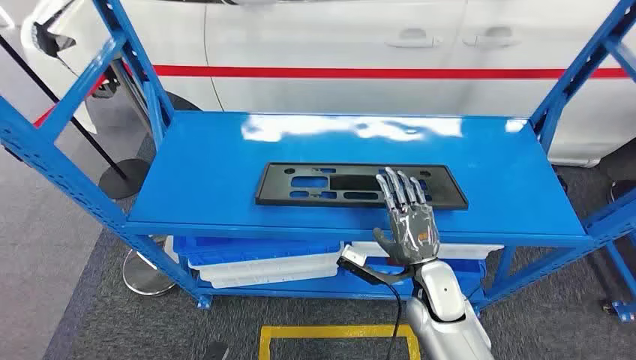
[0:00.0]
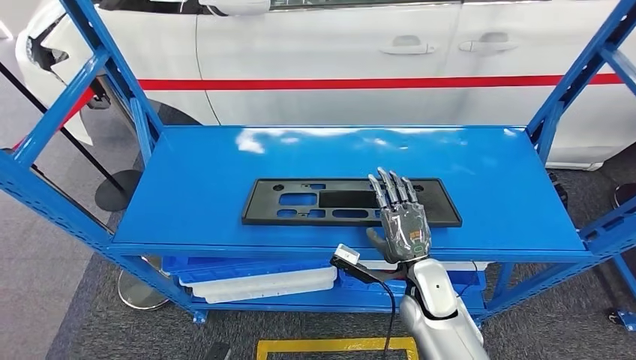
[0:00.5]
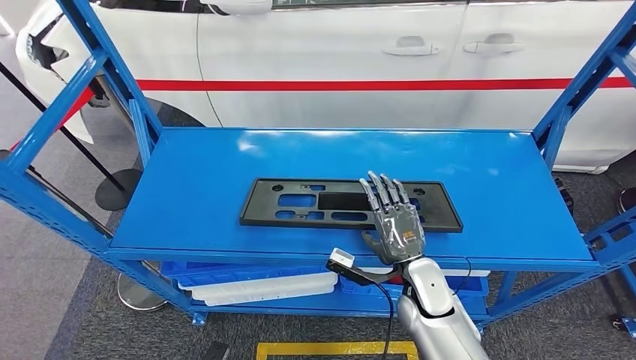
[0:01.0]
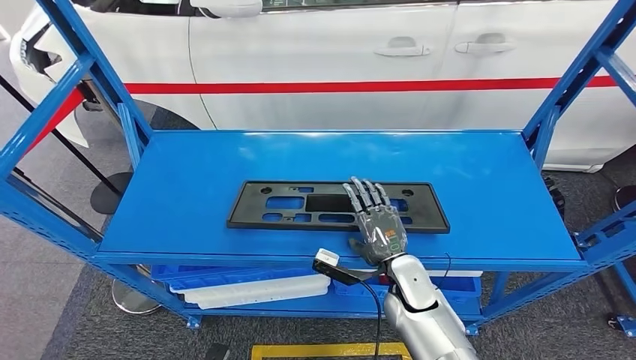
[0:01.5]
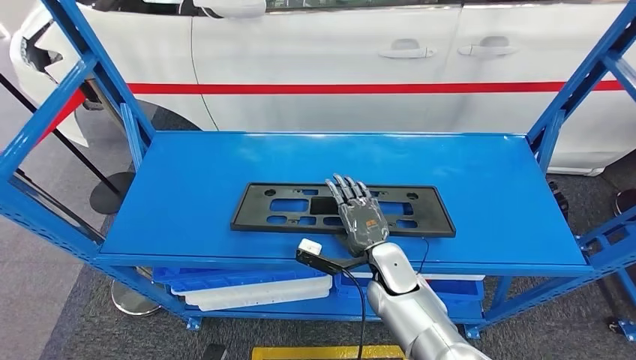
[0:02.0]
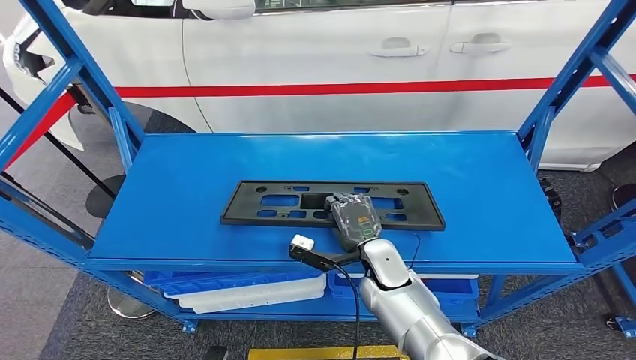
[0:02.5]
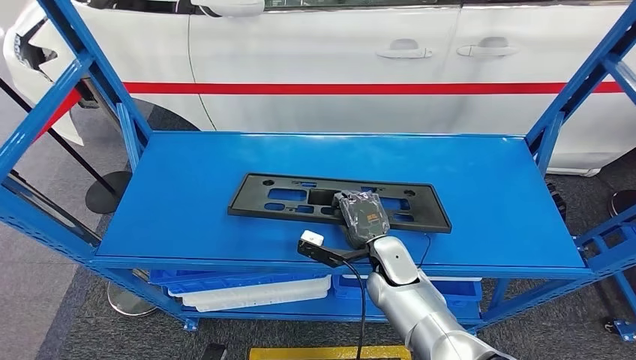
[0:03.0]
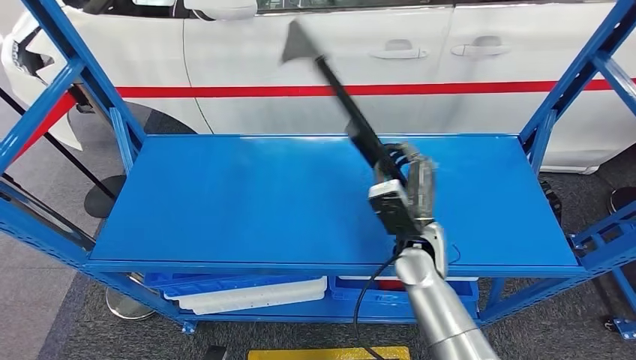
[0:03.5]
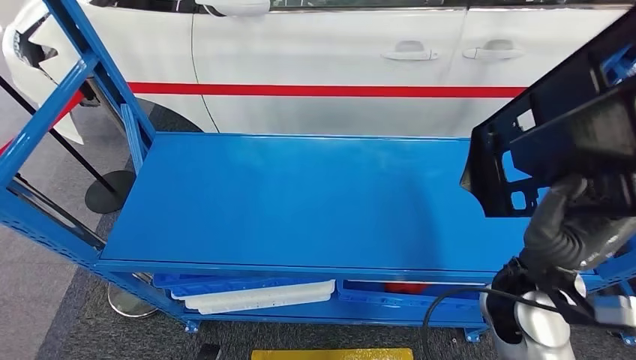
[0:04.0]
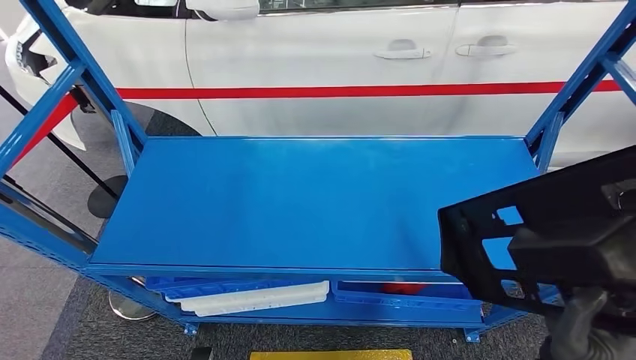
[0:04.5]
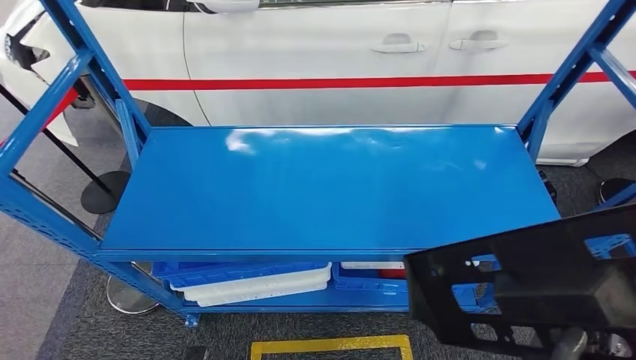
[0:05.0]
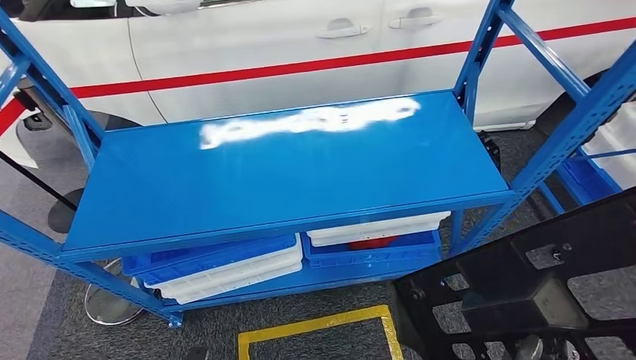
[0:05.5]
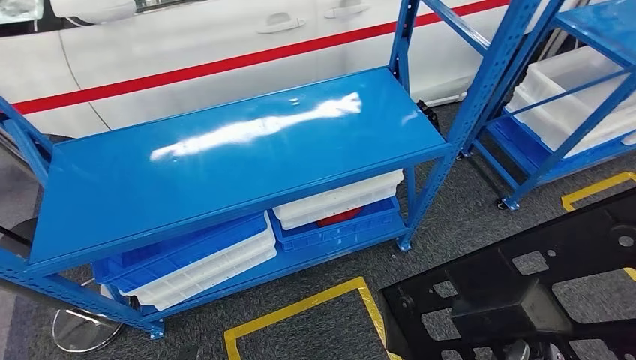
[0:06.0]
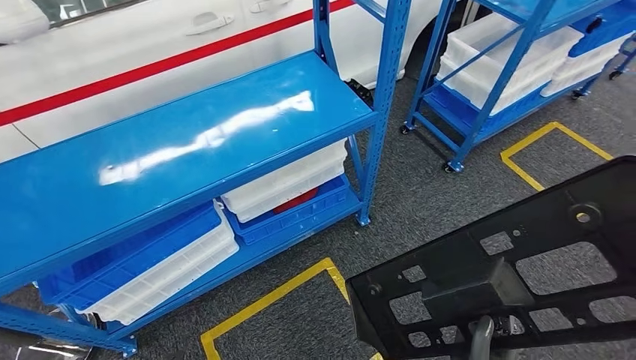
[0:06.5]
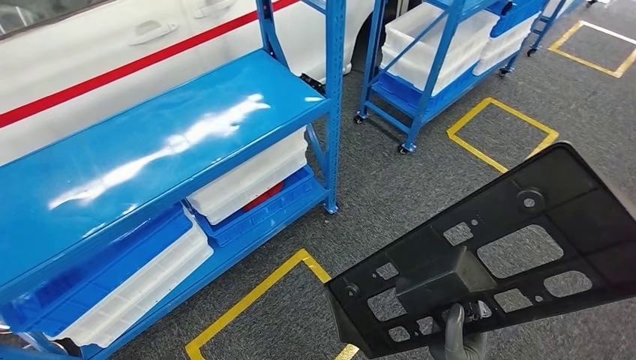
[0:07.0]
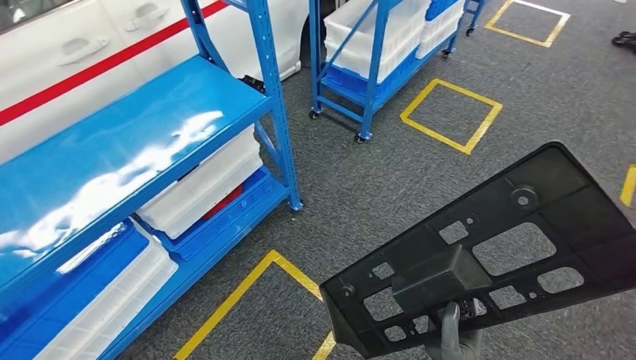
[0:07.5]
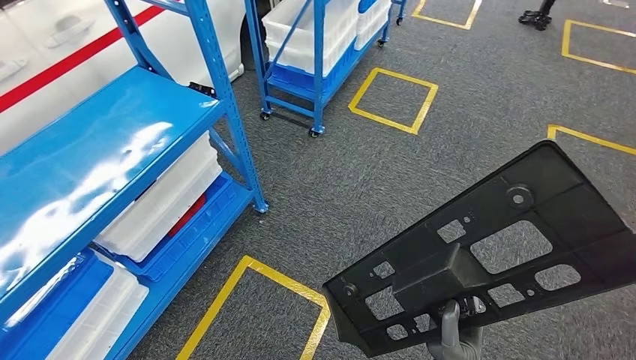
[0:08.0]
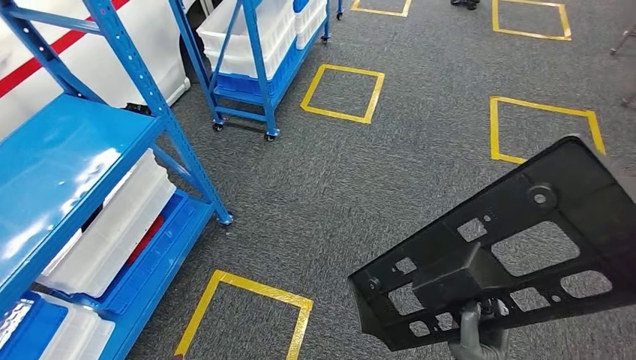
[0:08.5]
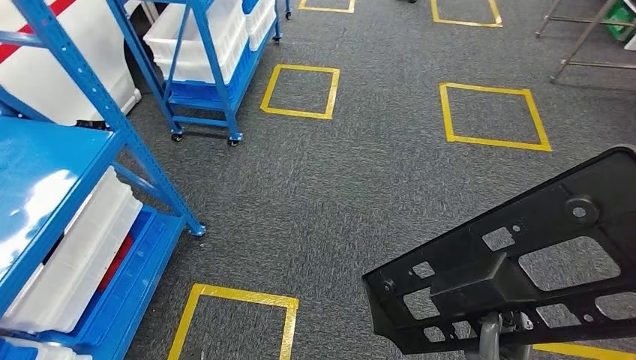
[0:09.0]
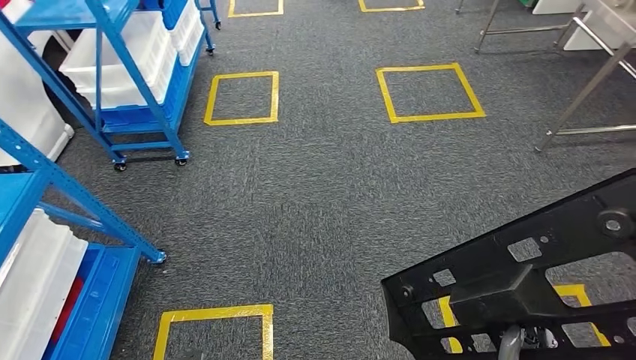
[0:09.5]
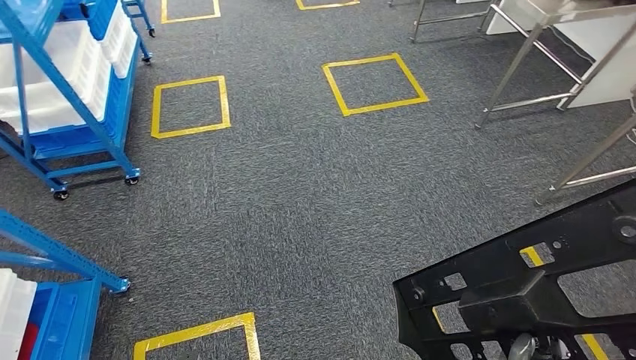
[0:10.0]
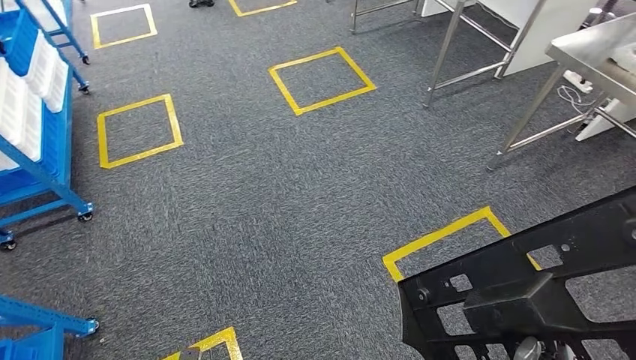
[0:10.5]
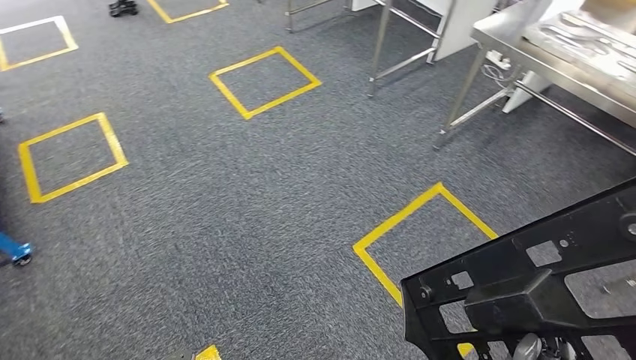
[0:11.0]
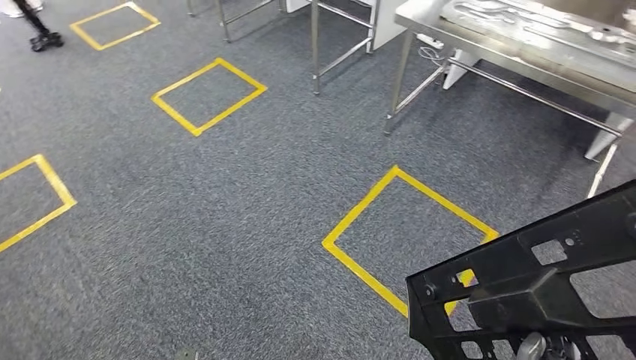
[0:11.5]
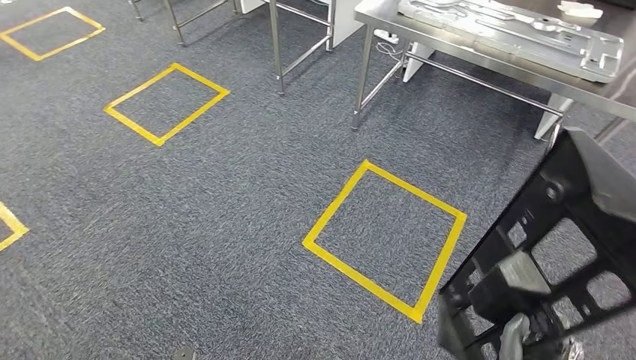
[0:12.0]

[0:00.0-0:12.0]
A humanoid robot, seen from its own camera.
Step, 0:00.0 to 0:04.0: Pick up the large material from the shelf.

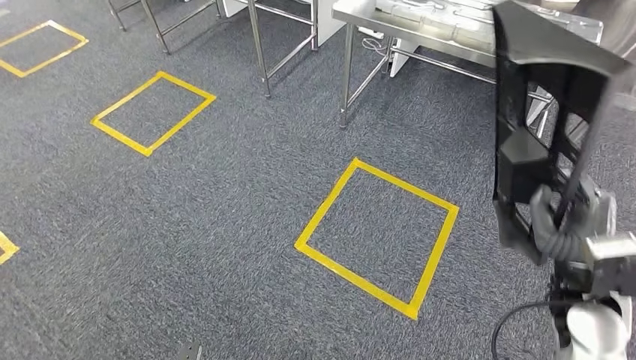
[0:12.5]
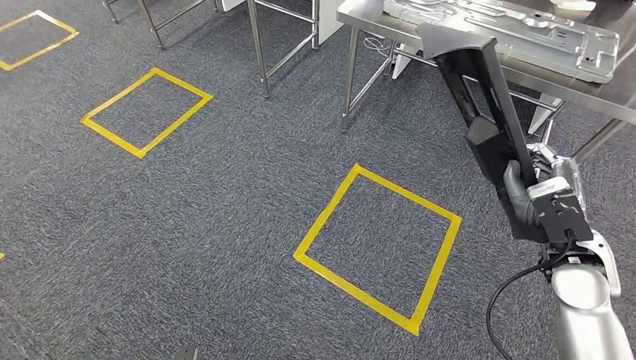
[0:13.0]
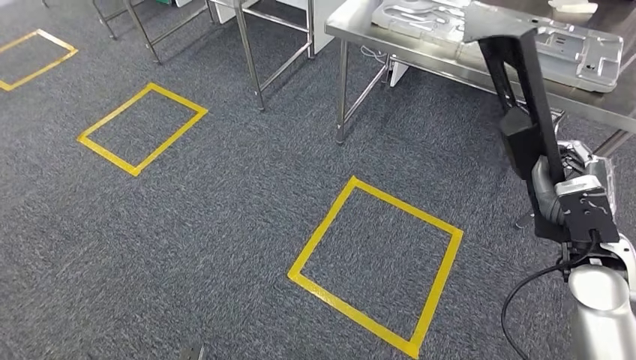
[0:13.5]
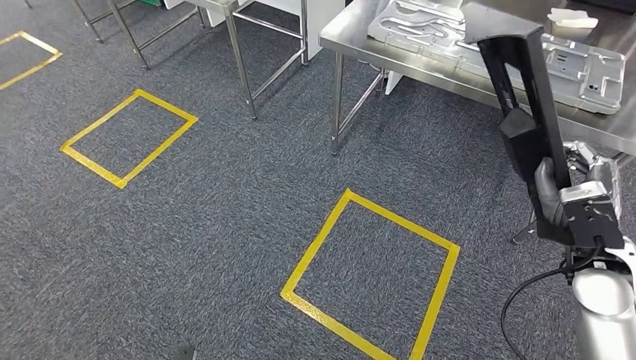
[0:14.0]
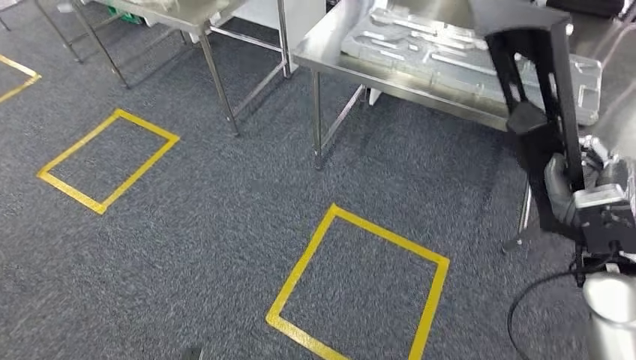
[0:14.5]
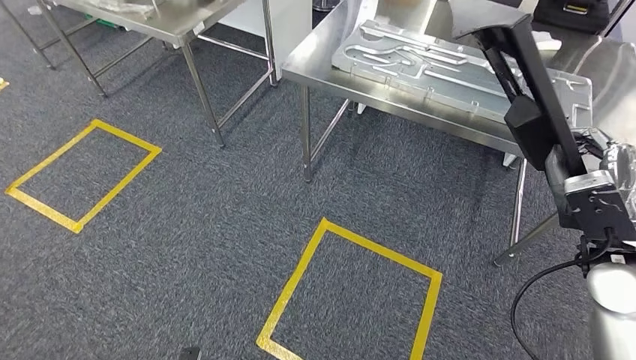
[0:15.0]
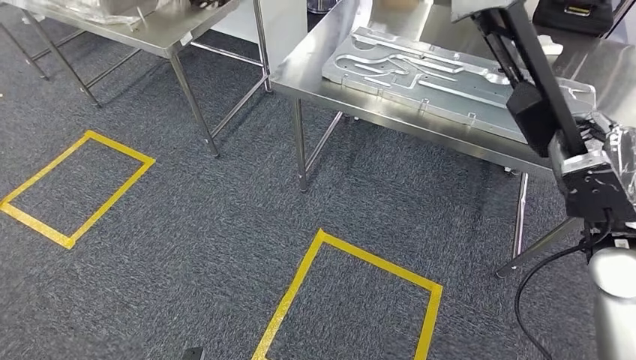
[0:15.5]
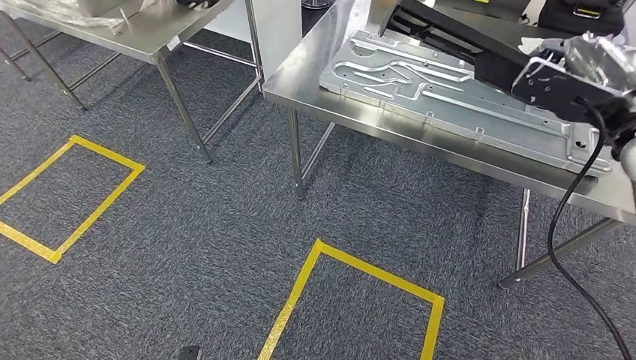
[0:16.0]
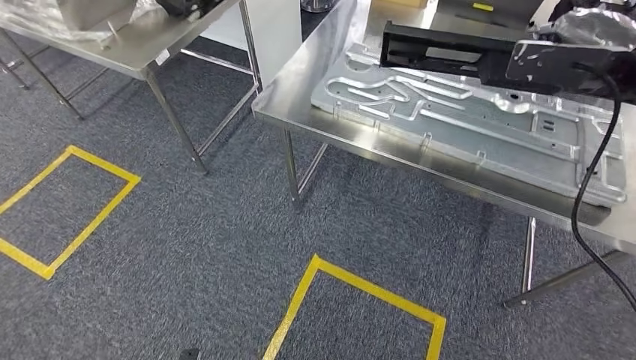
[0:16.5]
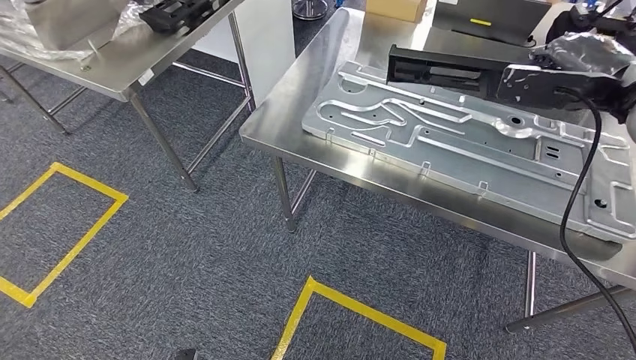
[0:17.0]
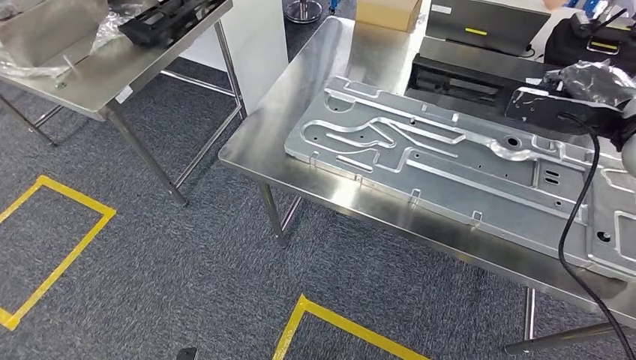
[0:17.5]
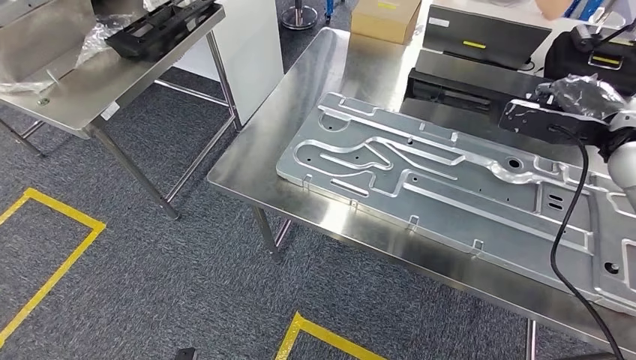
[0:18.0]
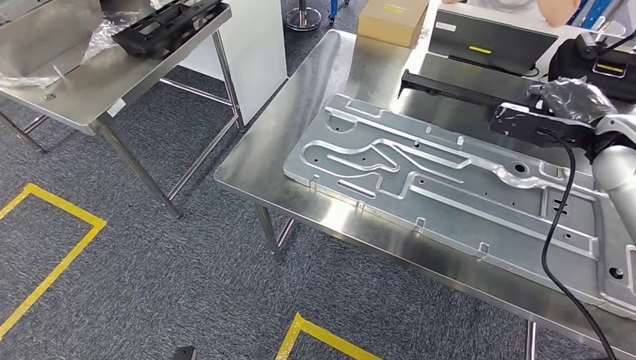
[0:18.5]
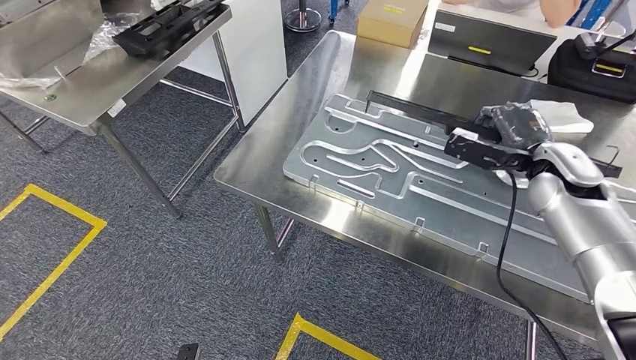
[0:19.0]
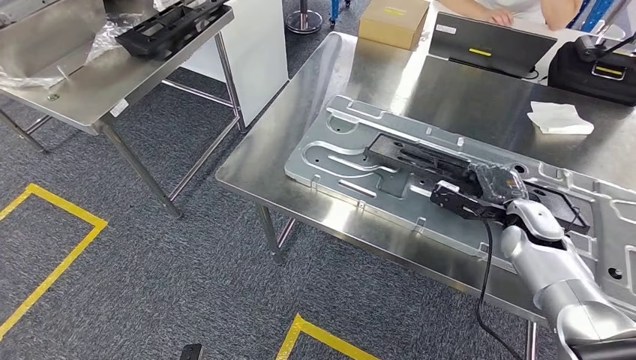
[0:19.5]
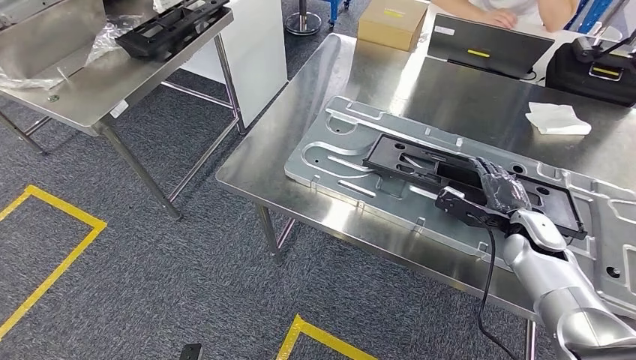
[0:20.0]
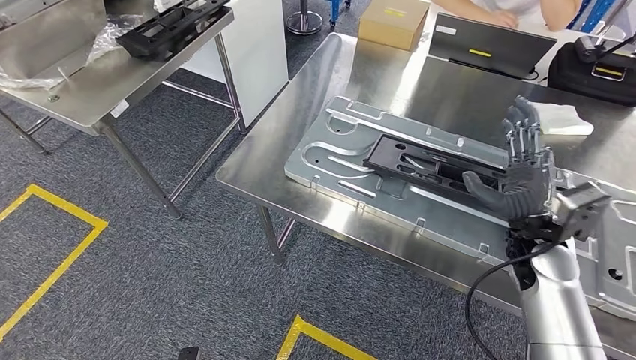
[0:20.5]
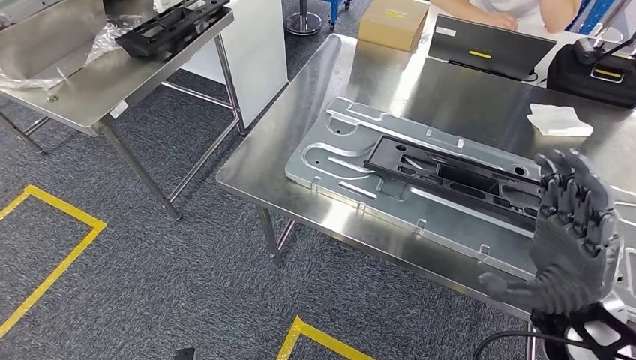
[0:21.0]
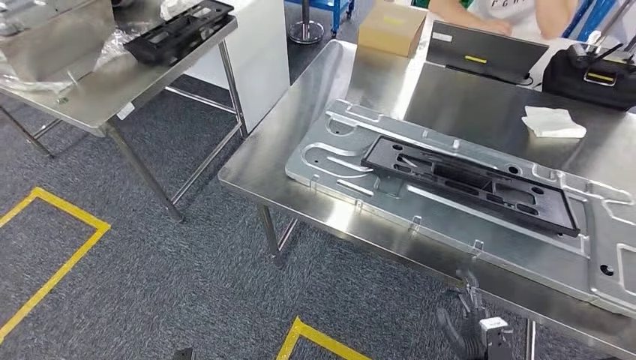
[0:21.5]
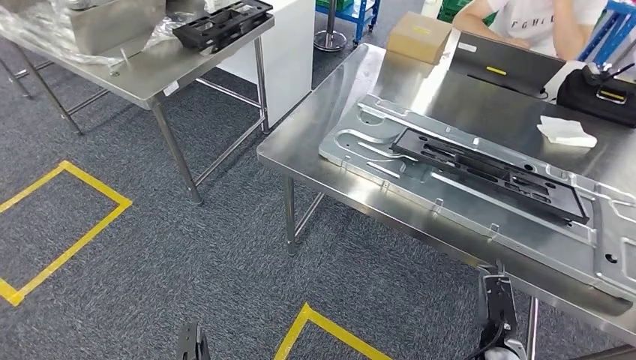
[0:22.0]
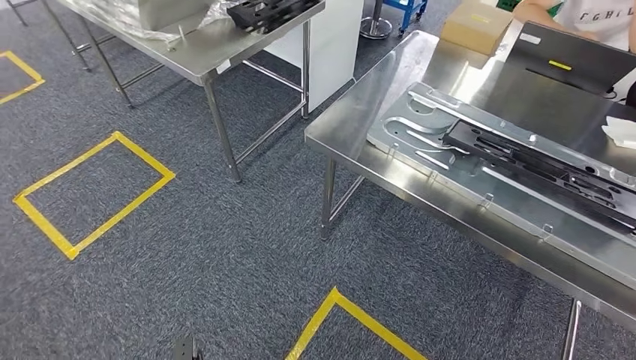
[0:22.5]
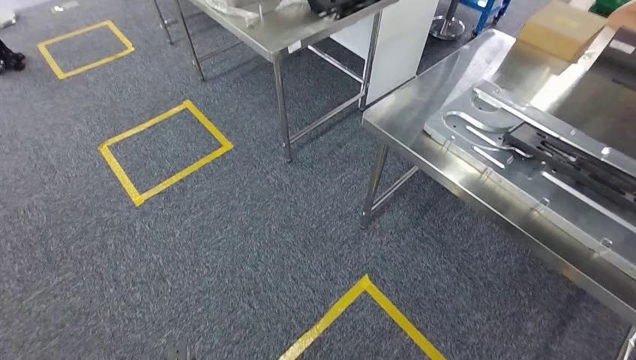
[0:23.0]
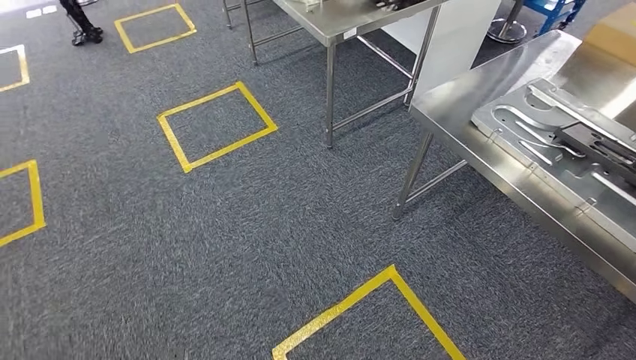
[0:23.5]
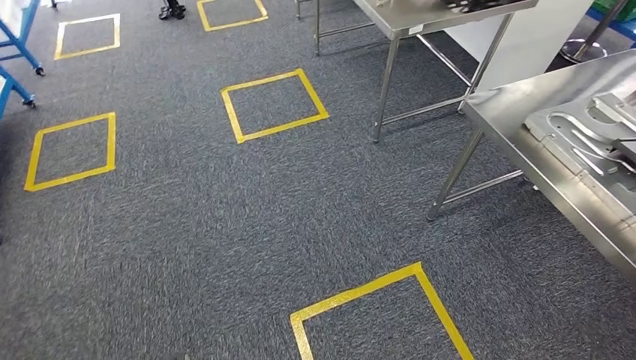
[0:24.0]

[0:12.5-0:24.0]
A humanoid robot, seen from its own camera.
Step, 0:12.5 to 0:16.0: Move the large material to the workbench.
Step, 0:16.5 to 0:22.5: Insert the large material into the corresponding slot on the workbench.
